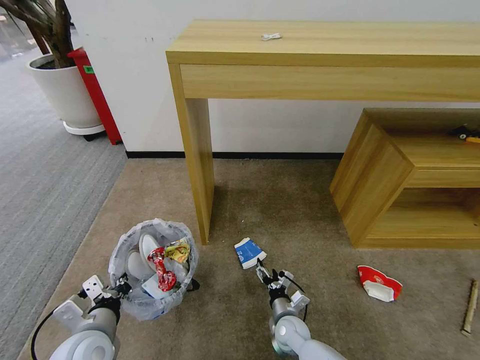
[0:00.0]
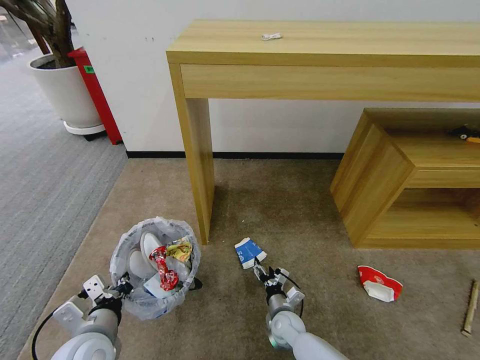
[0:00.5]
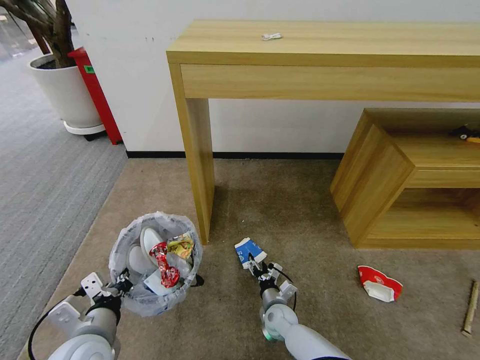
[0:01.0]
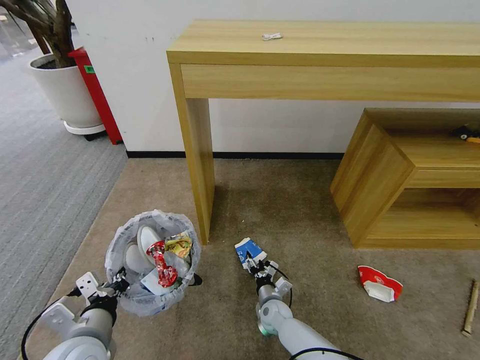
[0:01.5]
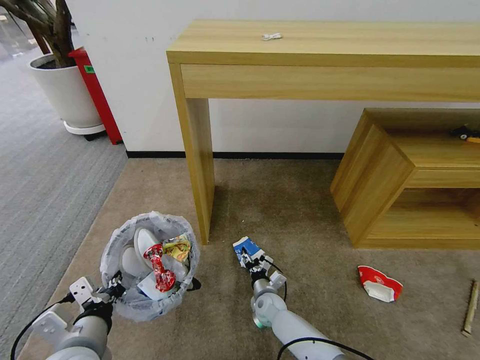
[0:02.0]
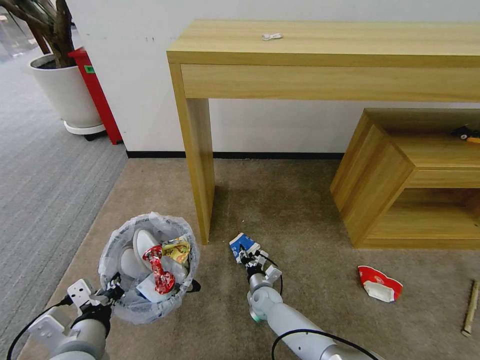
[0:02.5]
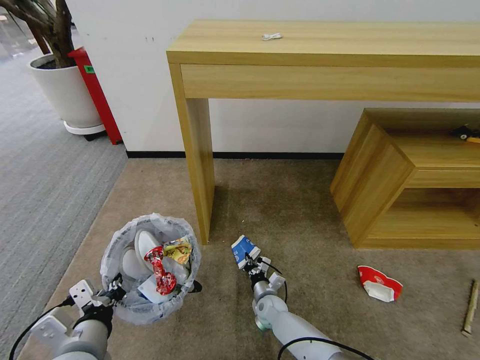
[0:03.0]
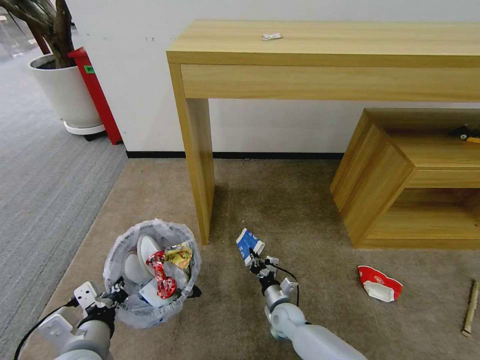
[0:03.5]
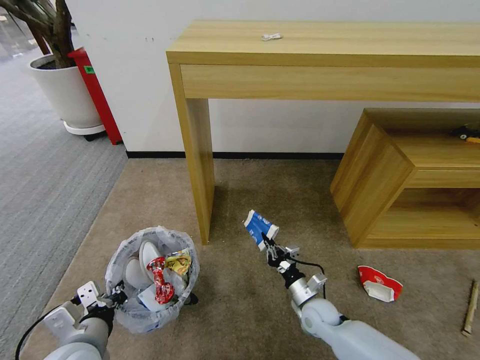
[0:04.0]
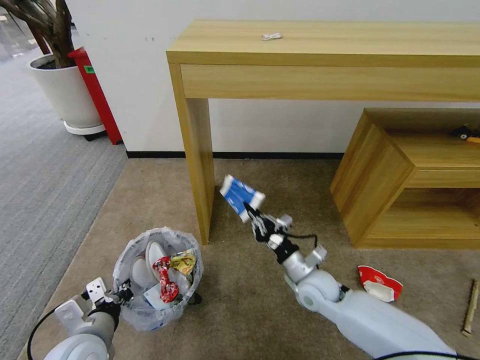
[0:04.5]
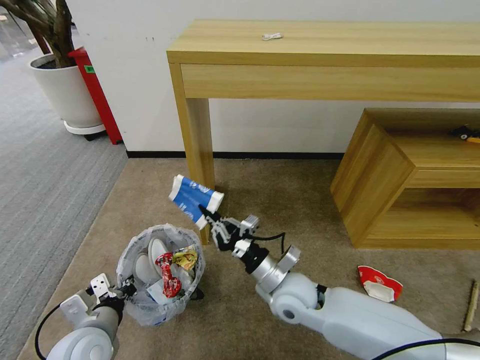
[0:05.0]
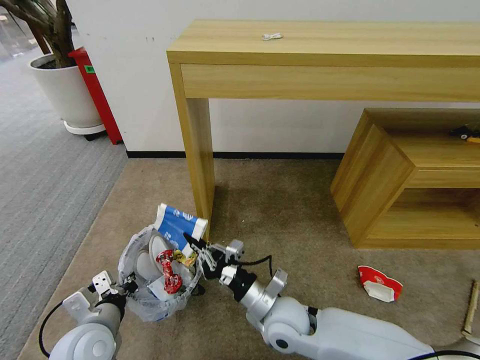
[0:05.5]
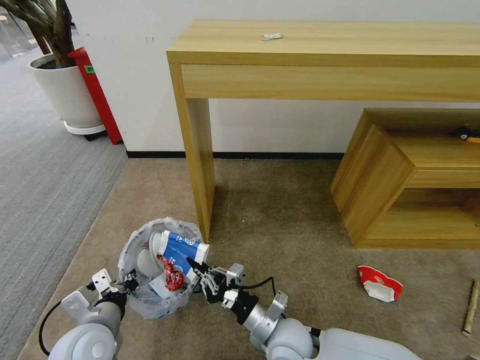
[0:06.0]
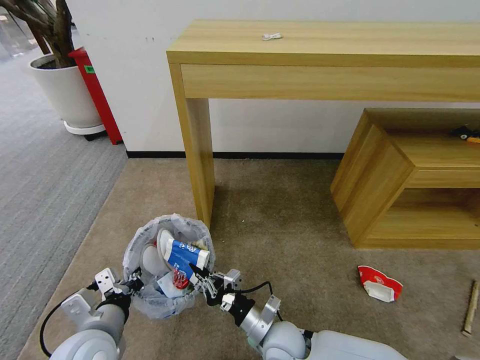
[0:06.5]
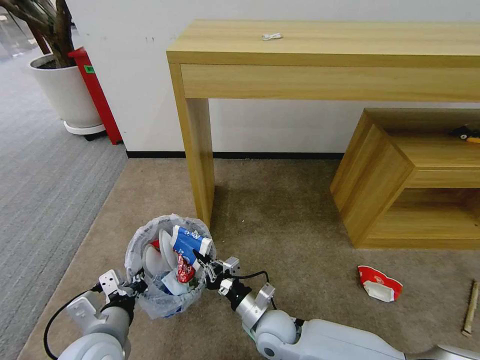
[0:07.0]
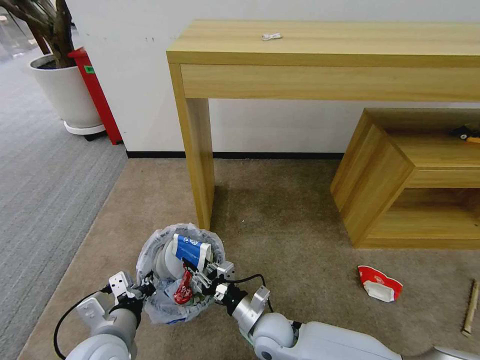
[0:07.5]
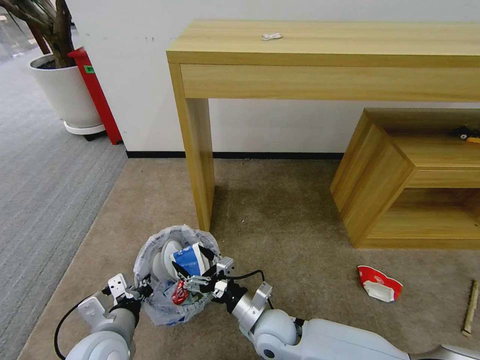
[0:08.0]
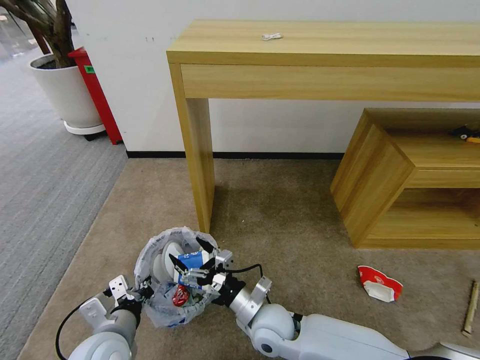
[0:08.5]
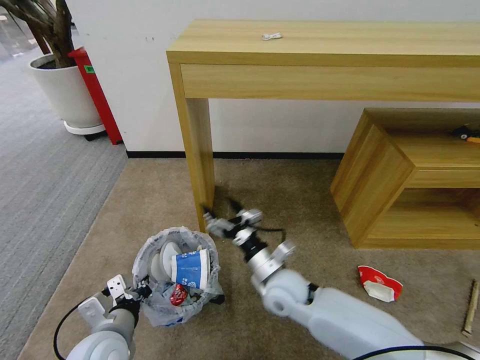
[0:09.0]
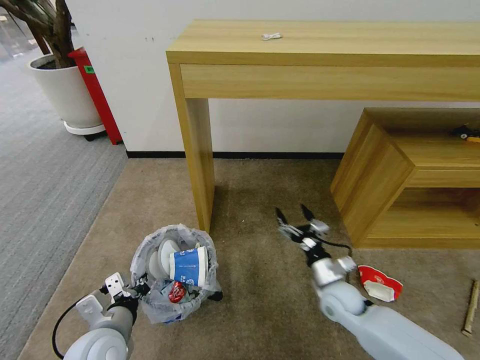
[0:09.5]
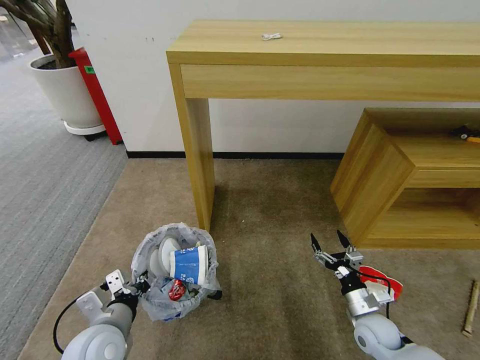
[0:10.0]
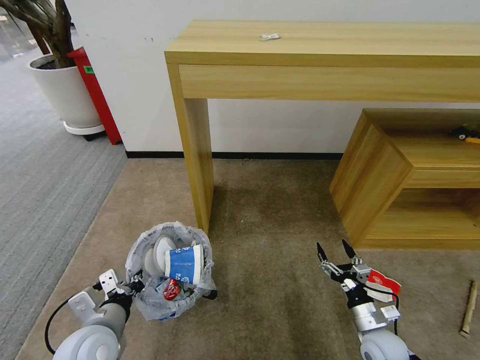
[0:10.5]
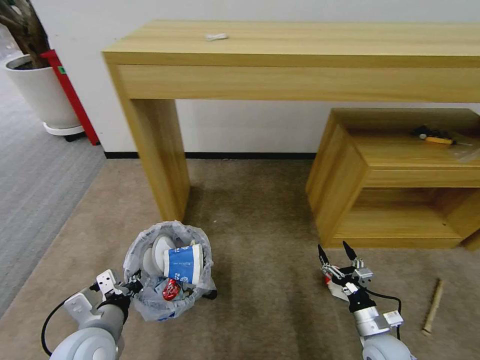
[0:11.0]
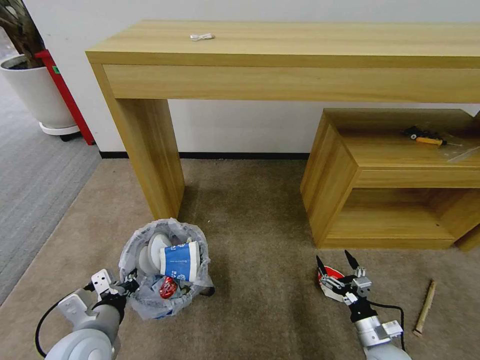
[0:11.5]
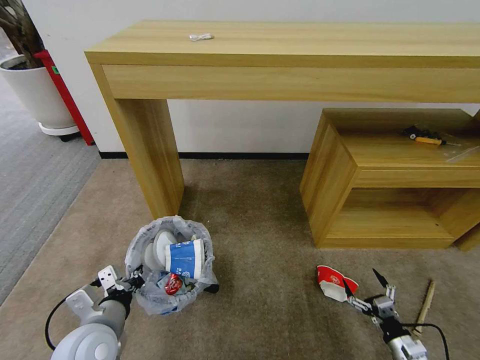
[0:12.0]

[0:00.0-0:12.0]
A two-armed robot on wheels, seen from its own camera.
Task of the whole recording: Pick up the trash bin and place the garbage on the floor into it.
0.0 to 2.0 s: The left gripper shifts by some 5 cm. Meanwhile the right gripper goes some 5 cm forward.
2.0 to 4.0 s: The right gripper moves to the right and upward, about 15 cm, and closes.
4.0 to 6.0 s: The right gripper heads upward, to the left and backward, covering about 20 cm.
6.0 to 8.0 s: The right gripper opens.
8.0 to 10.0 s: The right gripper shifts some 25 cm to the right.
10.0 to 12.0 s: The right gripper is displaced backward and to the right by approximately 15 cm.

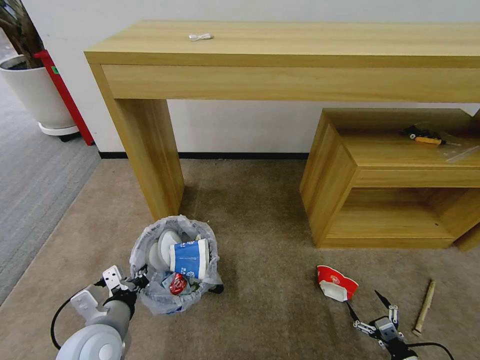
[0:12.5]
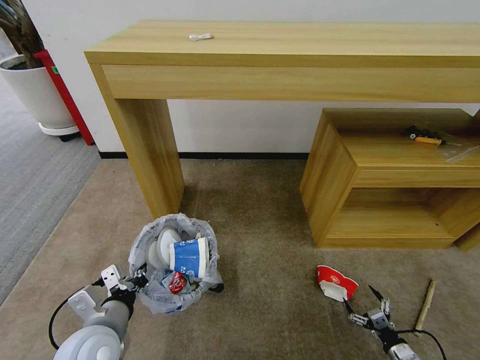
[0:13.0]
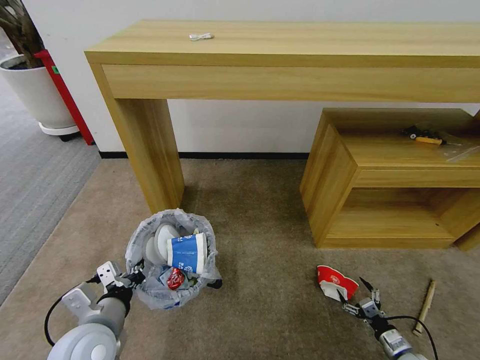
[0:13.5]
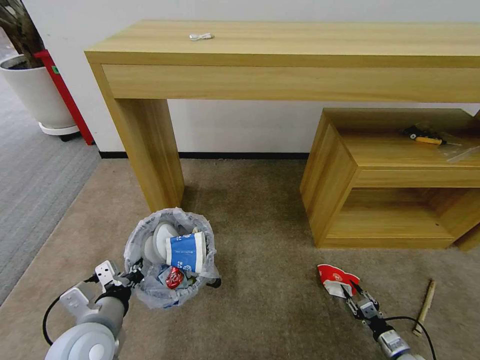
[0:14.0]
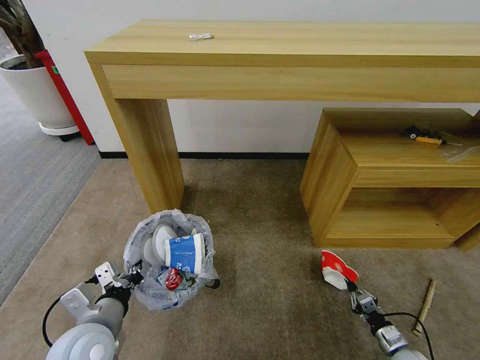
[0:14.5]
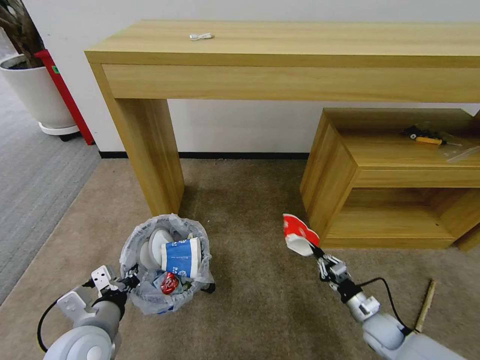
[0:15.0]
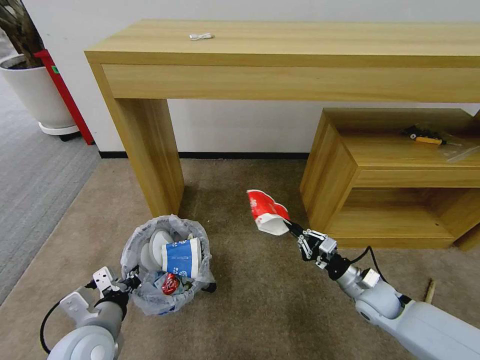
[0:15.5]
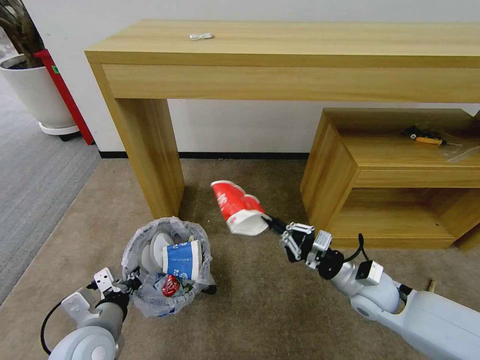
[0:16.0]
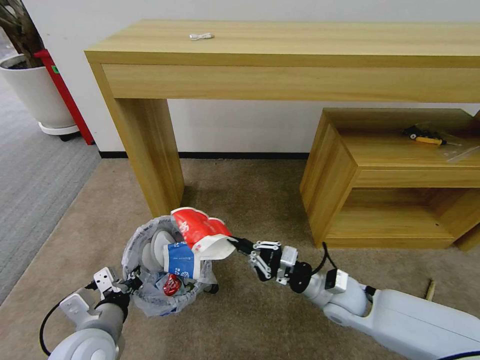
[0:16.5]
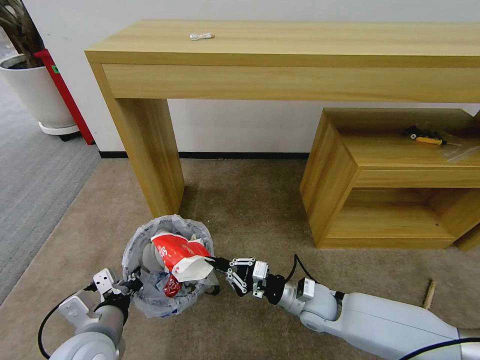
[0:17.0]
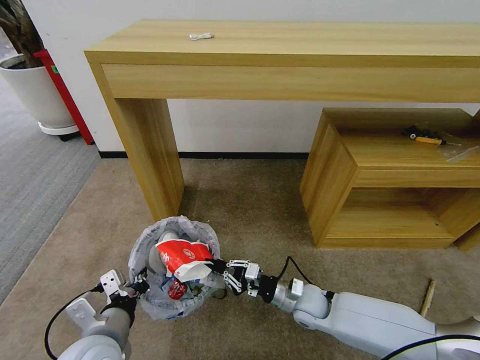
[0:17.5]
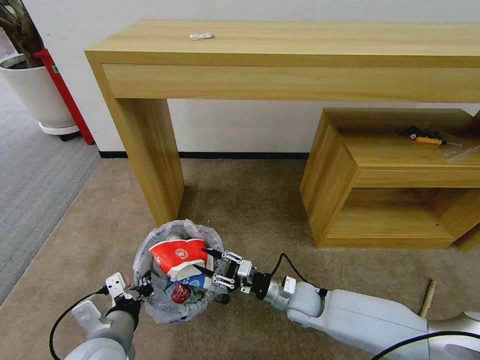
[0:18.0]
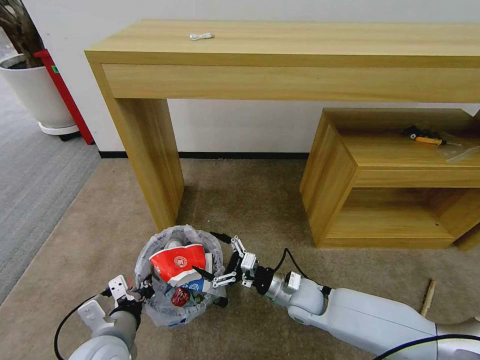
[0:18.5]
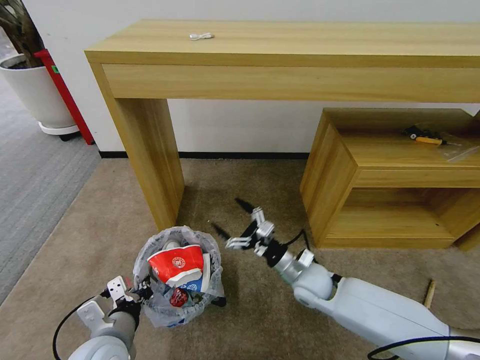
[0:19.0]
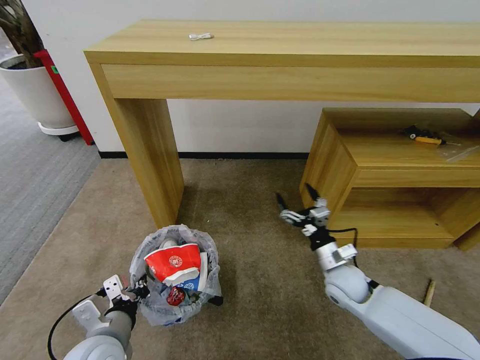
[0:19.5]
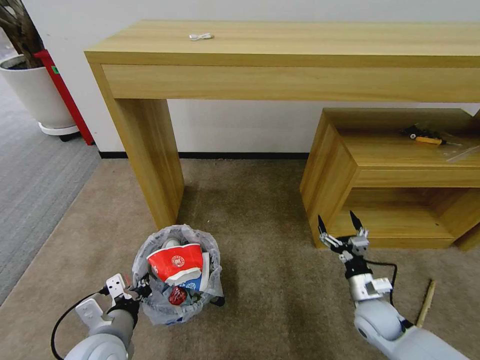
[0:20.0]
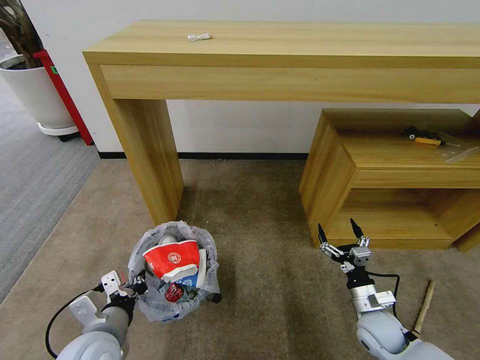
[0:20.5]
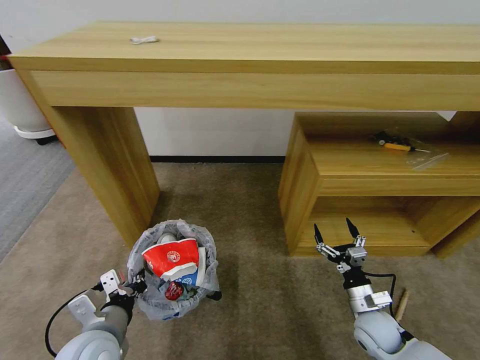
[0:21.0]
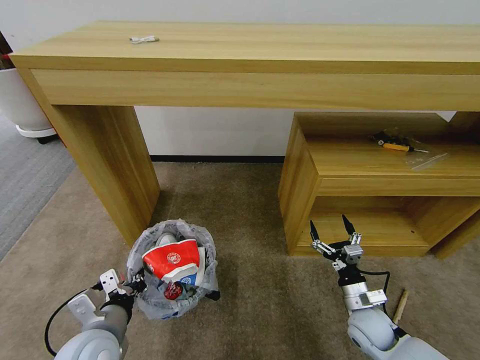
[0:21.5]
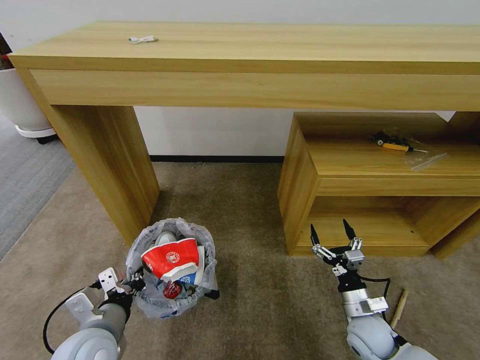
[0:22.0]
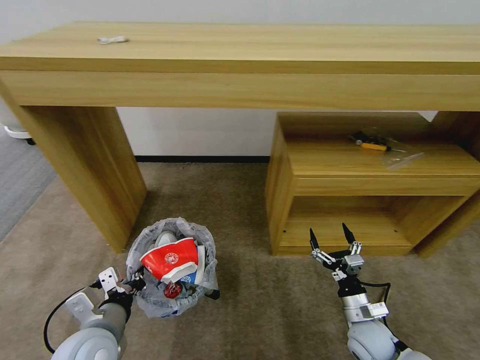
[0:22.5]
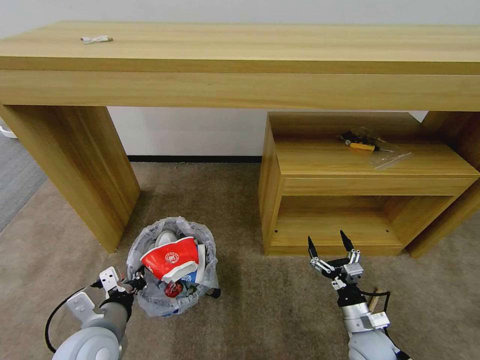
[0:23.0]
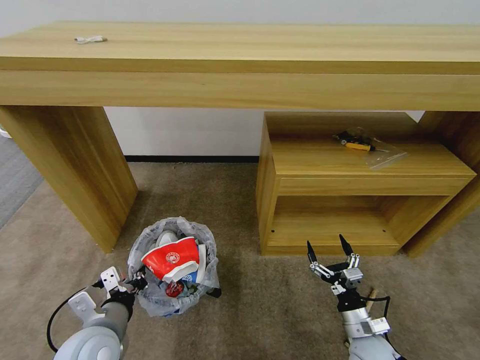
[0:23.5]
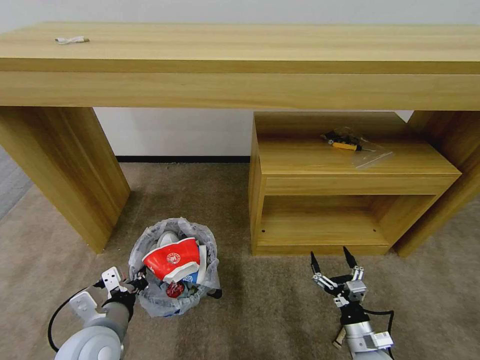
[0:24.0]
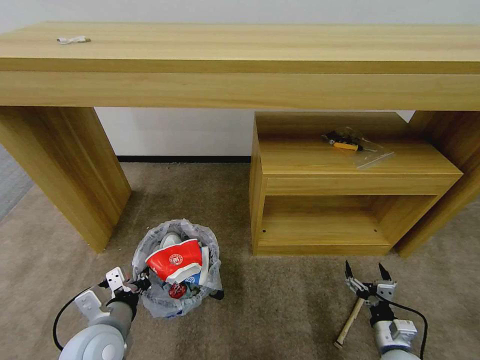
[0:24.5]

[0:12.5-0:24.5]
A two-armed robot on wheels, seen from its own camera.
Task of the whole recording: Pick up the trash bin and place the garbage on the floor into it.
12.5 to 14.5 s: The right gripper goes about 10 cm forward, and closes up.
14.5 to 16.5 s: The right gripper is displaced upward, to the left and forward by some 35 cm.
16.5 to 18.5 s: The right gripper goes about 10 cm to the left and downward, and opens up.
18.5 to 20.5 s: The right gripper travels to the right by approximately 15 cm.
22.5 to 24.5 s: The right gripper moves to the right and backward, roughly 10 cm.

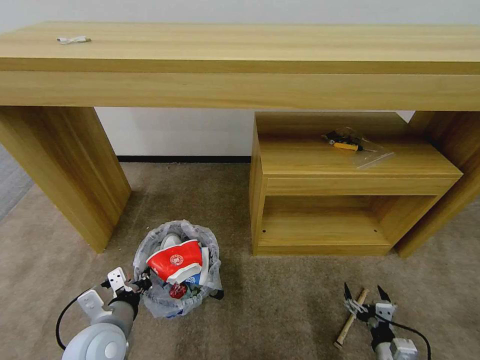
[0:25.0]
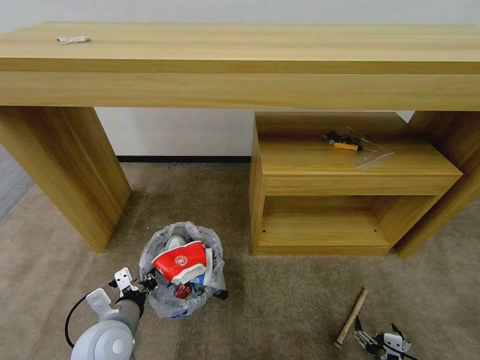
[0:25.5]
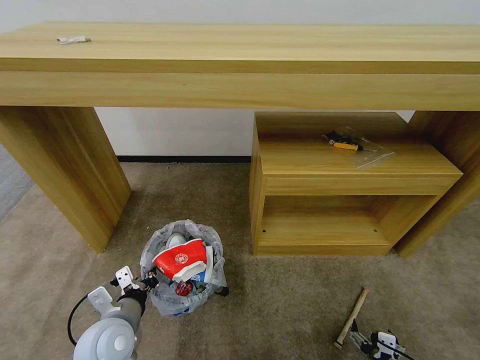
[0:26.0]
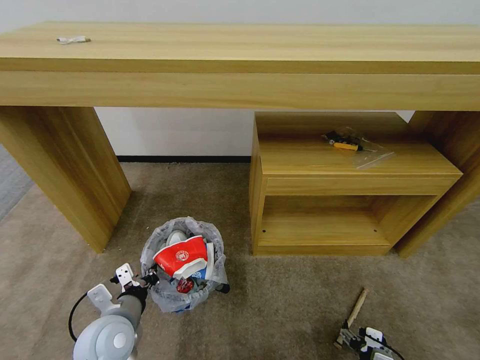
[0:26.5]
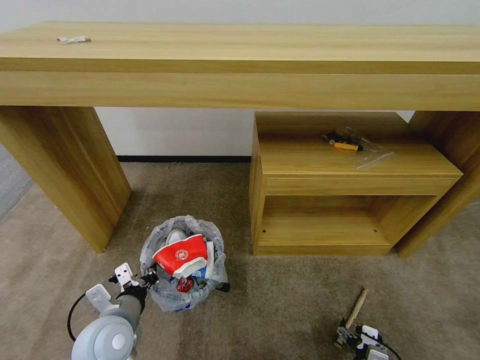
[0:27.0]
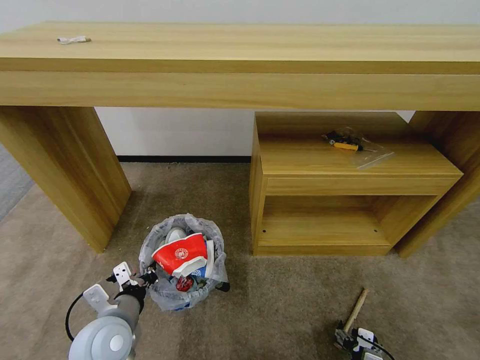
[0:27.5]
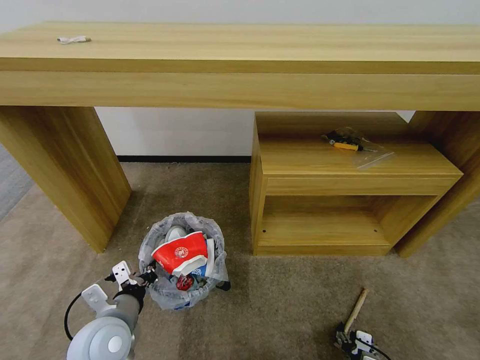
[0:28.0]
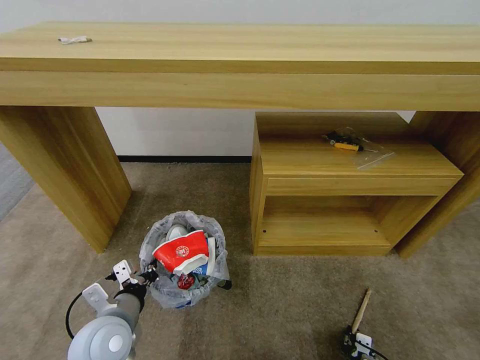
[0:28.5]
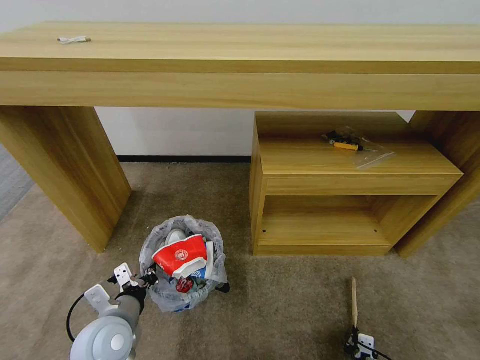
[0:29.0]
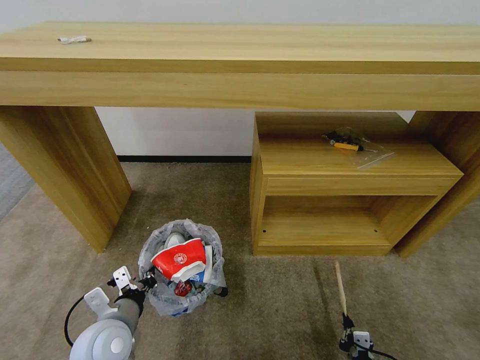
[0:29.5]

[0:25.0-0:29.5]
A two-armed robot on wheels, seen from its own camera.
Task of the whole recording: Pick up the trash bin and place the garbage on the floor into it.
25.0 to 27.0 s: The right gripper heads to the left and downward, covering about 5 cm.
27.0 to 29.5 s: The right gripper closes.
